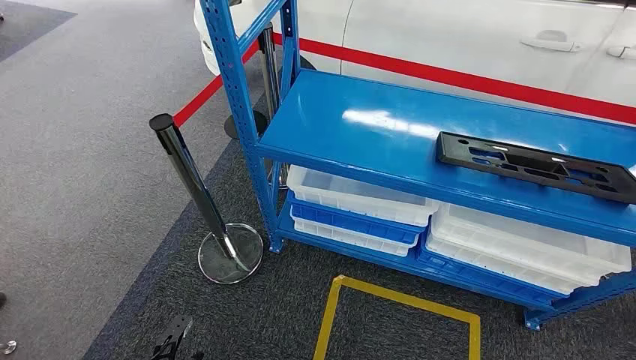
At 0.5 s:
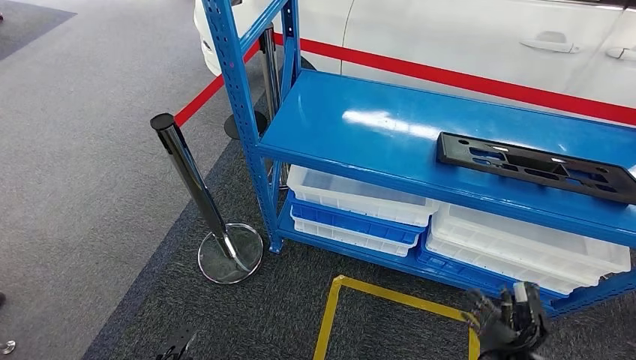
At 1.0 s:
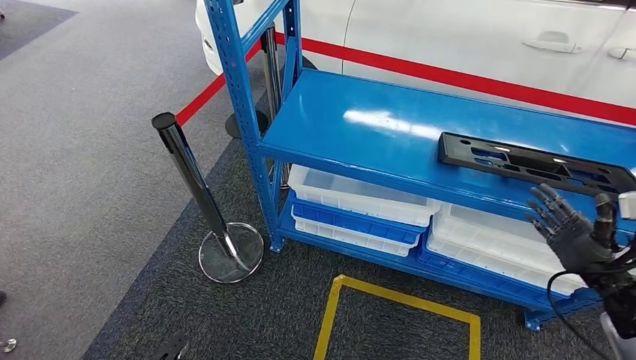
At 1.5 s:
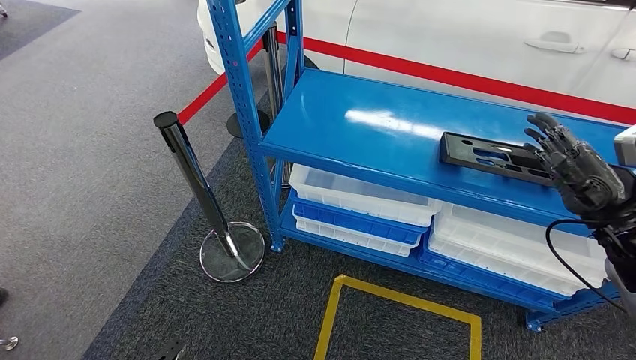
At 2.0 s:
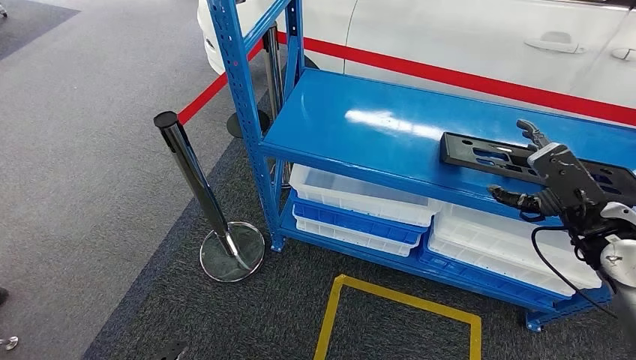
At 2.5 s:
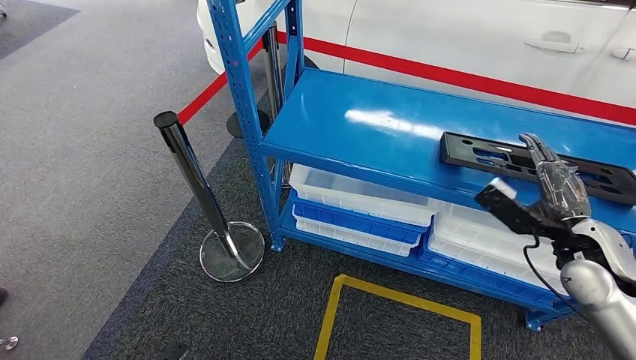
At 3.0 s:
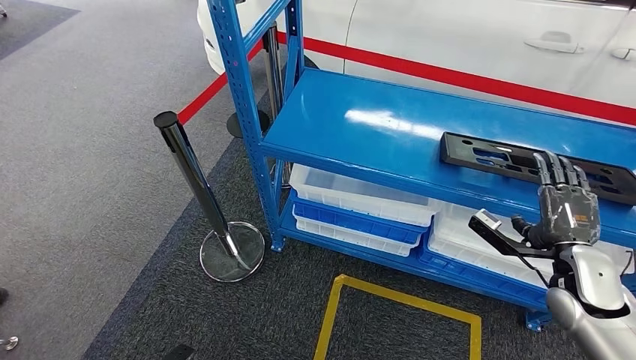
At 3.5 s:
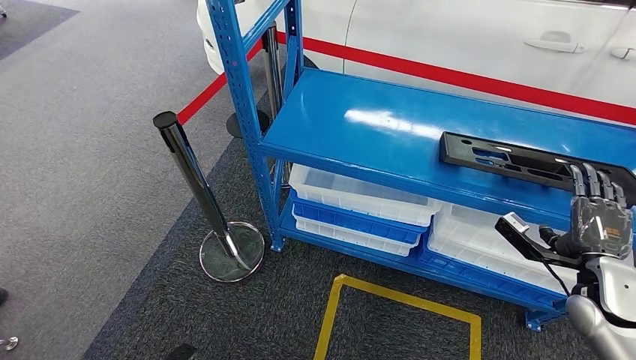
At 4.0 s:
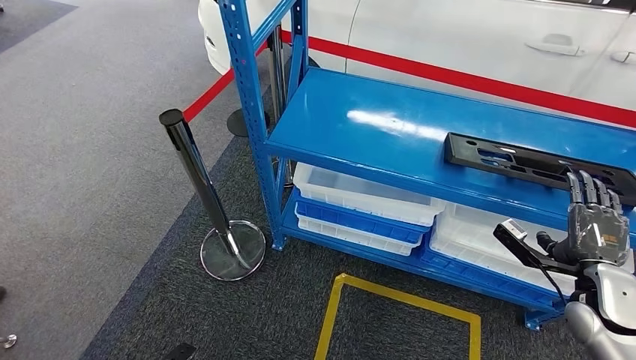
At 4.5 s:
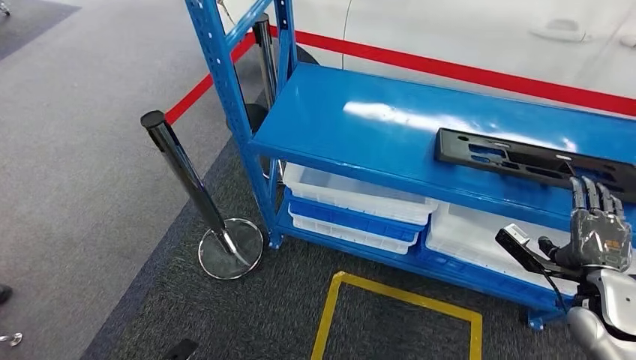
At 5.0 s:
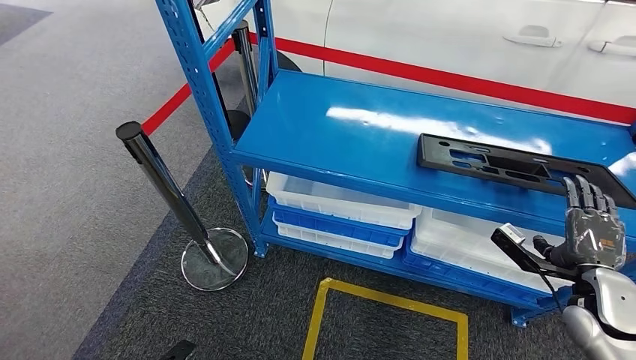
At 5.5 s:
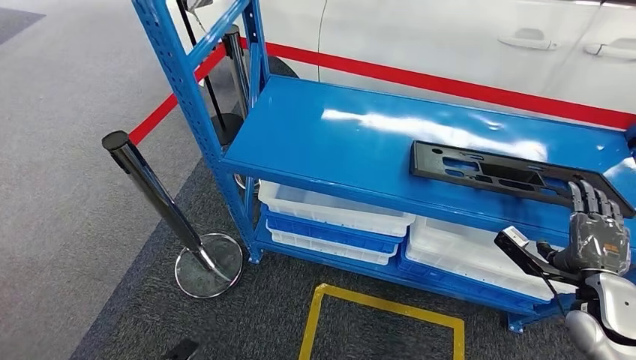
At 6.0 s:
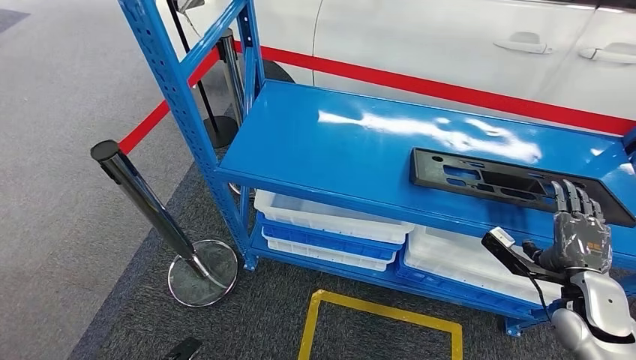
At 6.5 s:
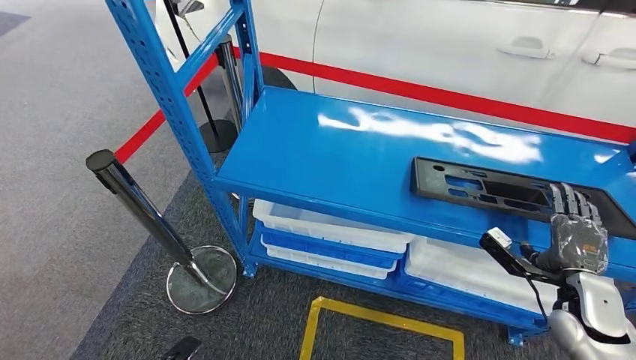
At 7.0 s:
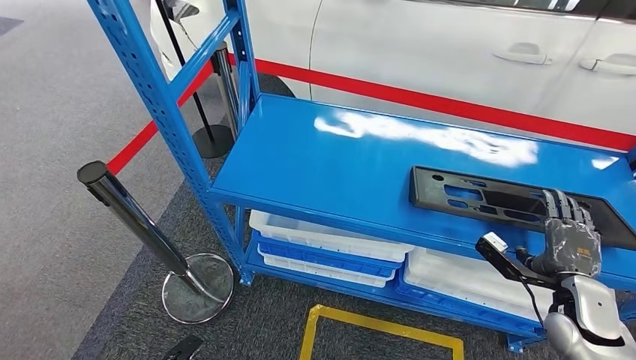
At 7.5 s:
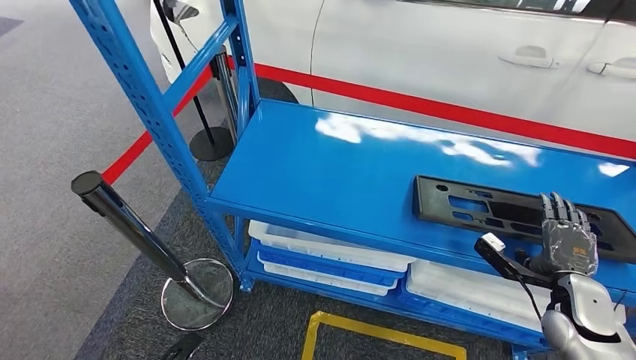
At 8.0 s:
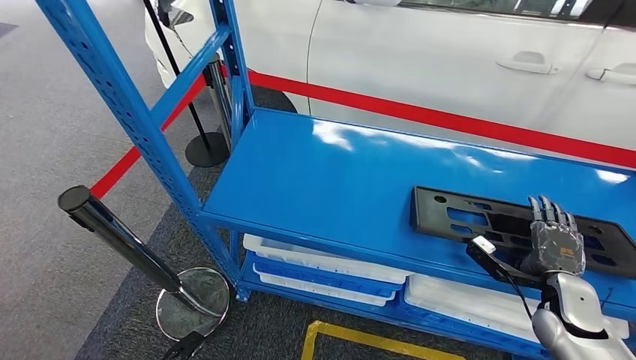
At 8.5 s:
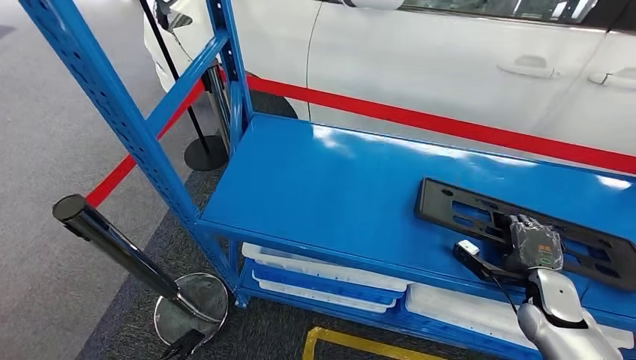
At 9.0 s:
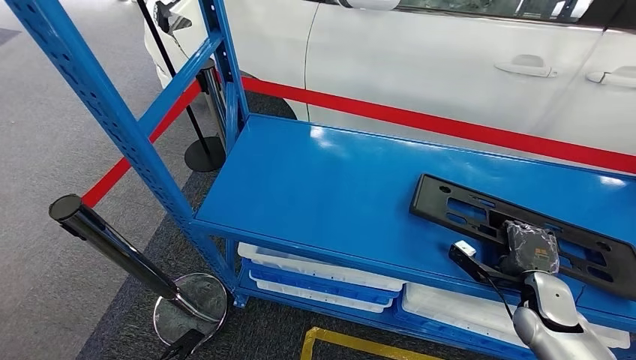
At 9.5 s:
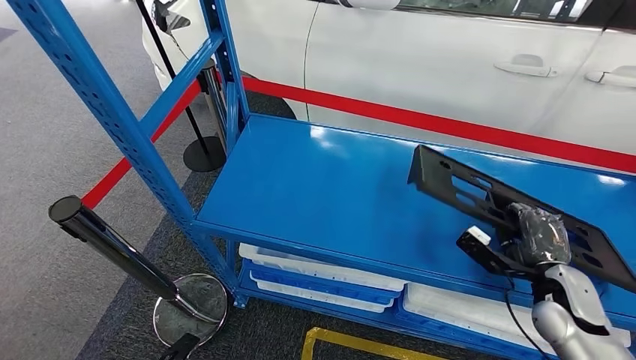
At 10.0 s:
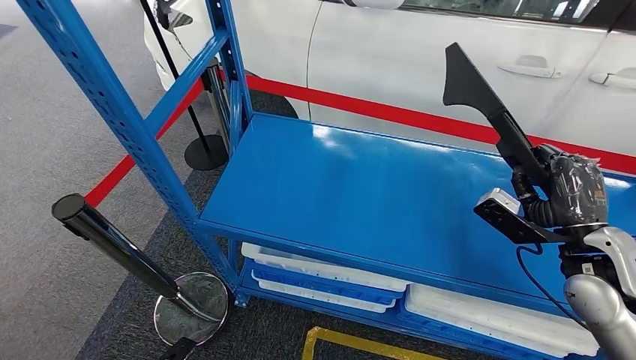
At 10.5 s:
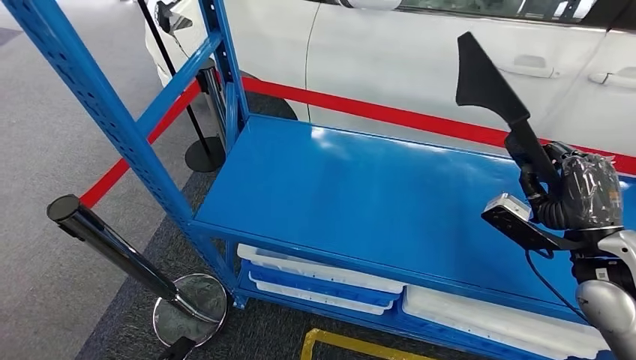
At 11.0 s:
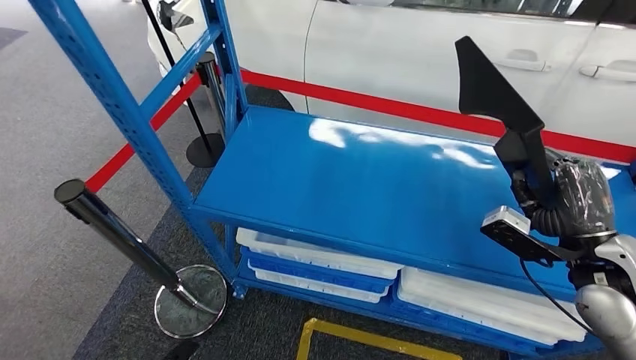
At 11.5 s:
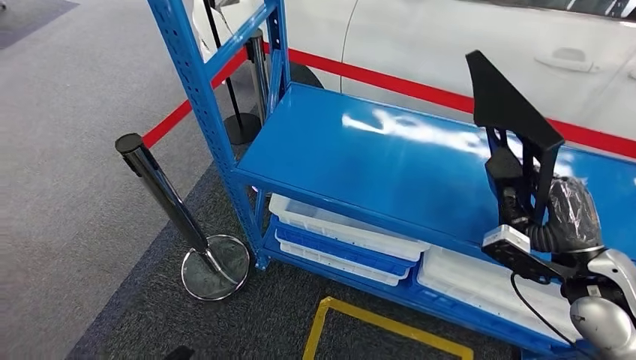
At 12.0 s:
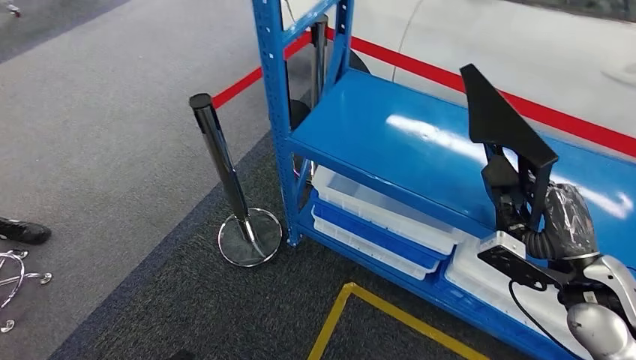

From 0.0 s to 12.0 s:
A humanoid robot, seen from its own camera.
From 2.0 s to 4.0 s: The right hand travels downward by about 10 cm.

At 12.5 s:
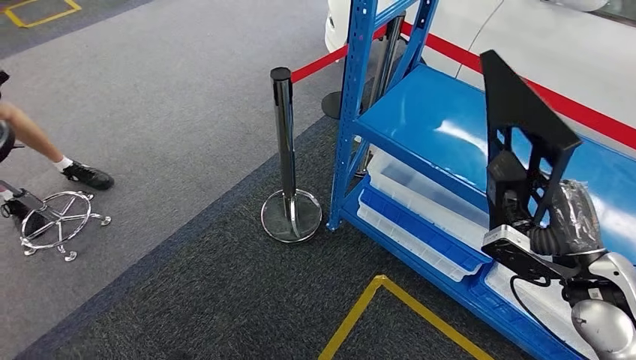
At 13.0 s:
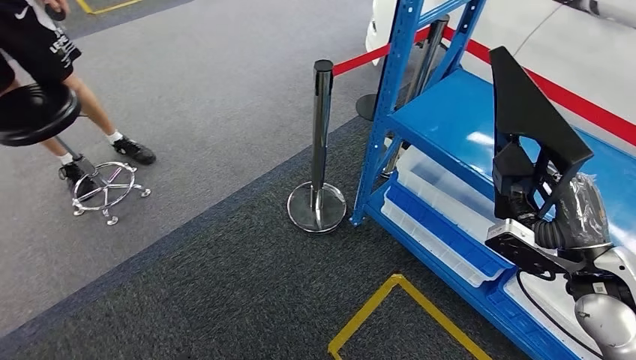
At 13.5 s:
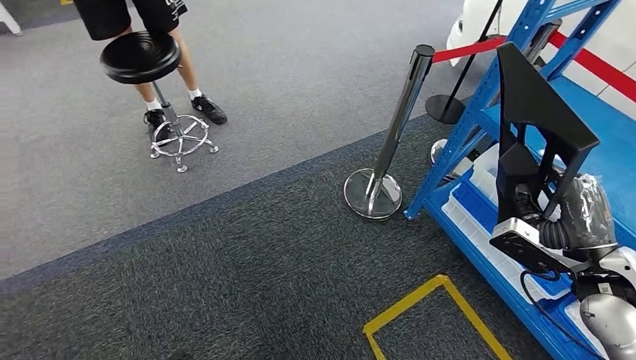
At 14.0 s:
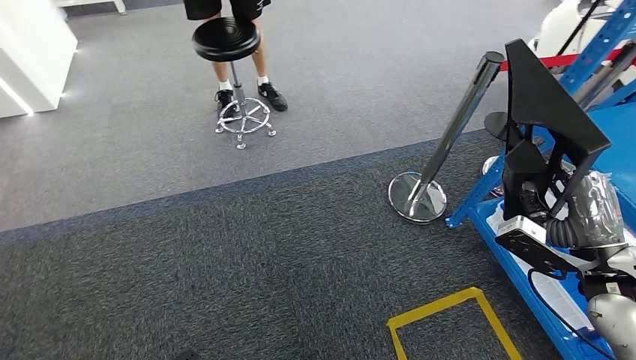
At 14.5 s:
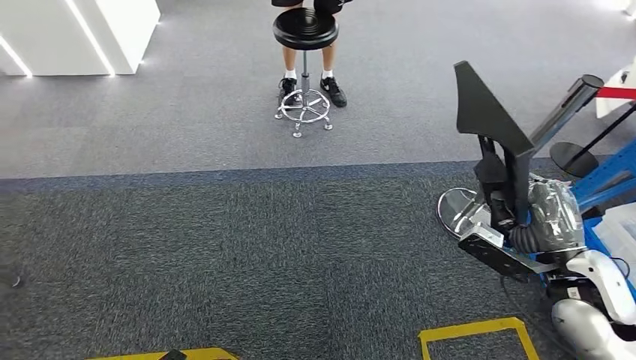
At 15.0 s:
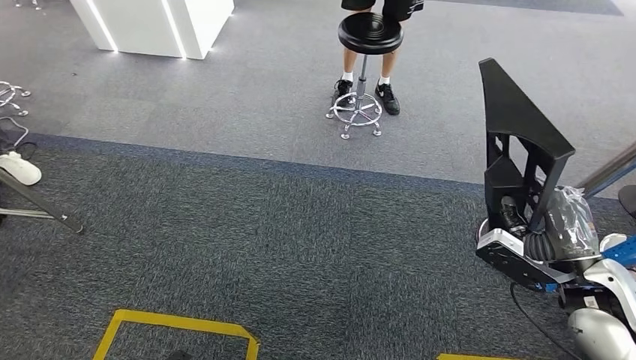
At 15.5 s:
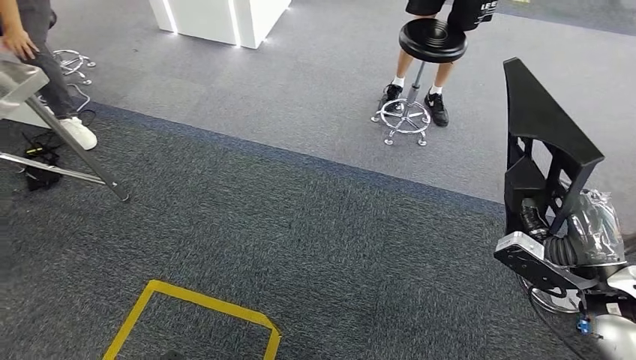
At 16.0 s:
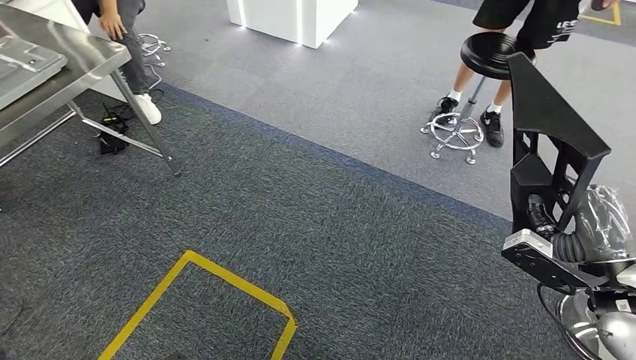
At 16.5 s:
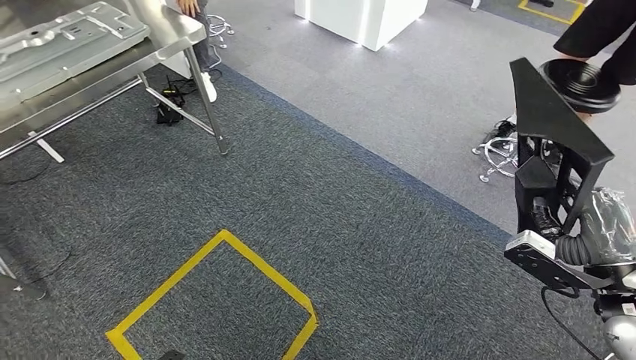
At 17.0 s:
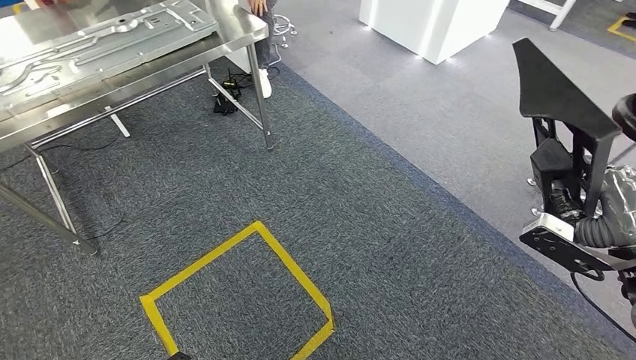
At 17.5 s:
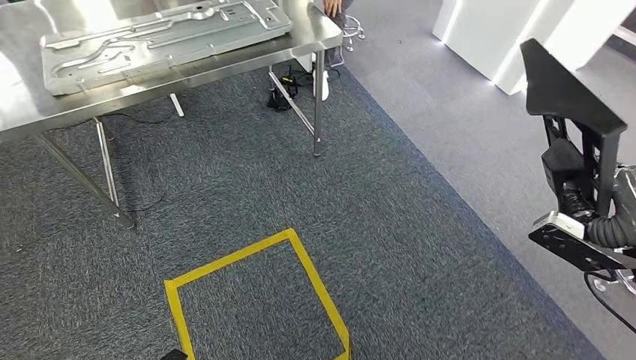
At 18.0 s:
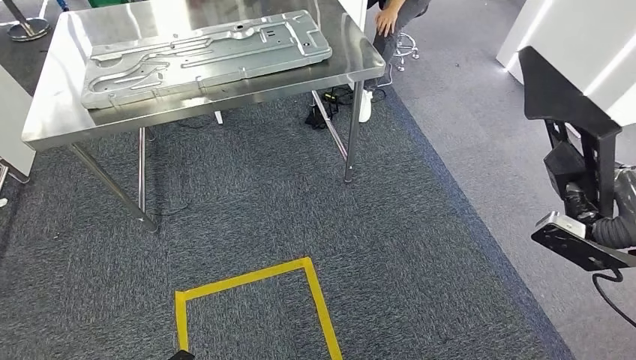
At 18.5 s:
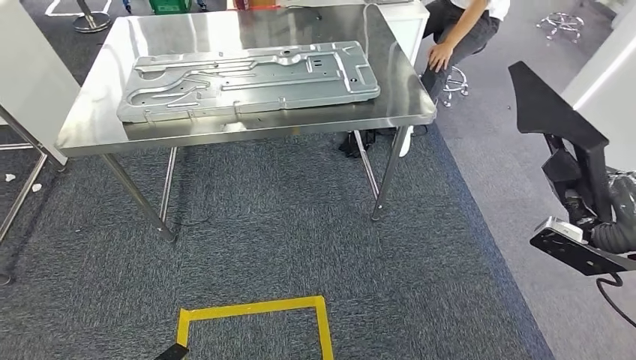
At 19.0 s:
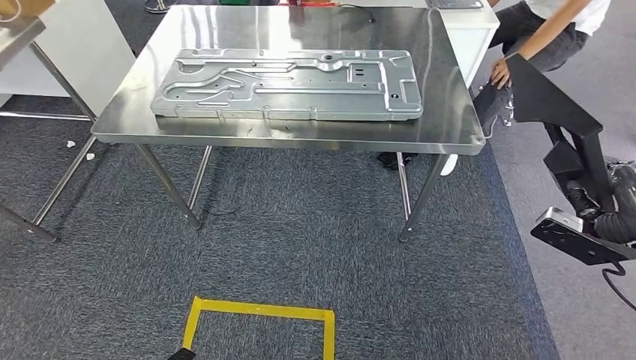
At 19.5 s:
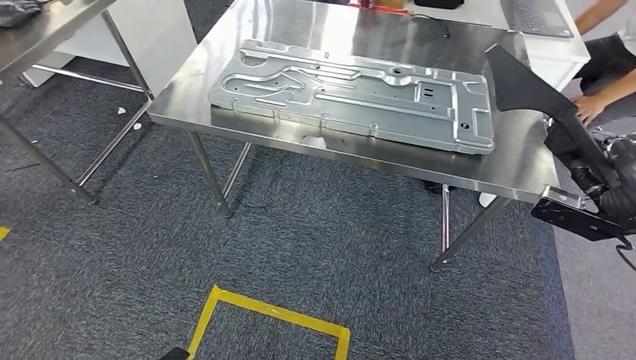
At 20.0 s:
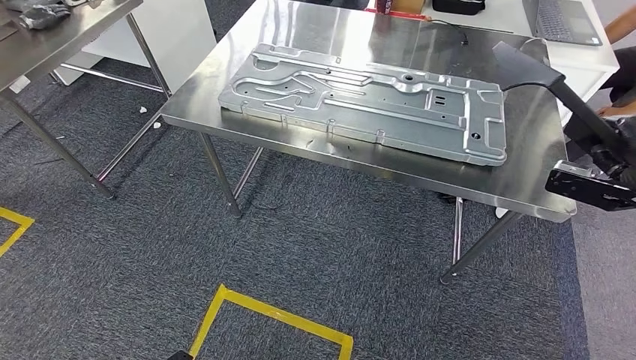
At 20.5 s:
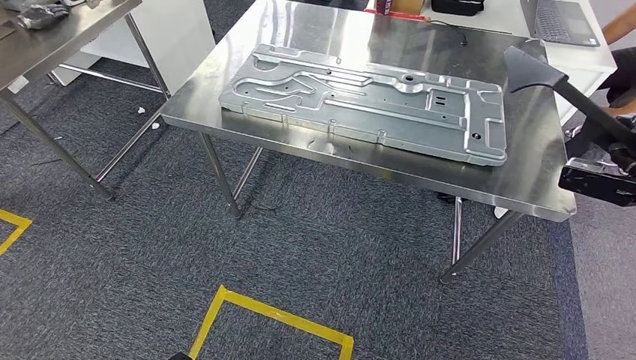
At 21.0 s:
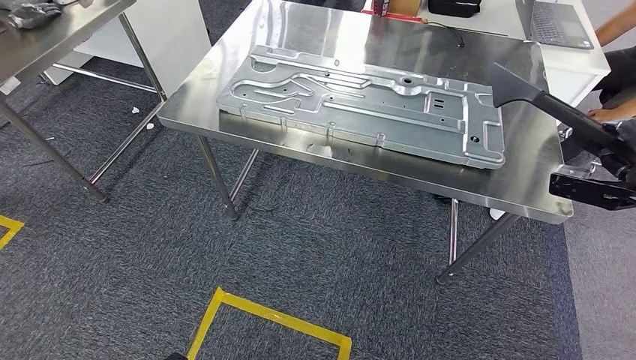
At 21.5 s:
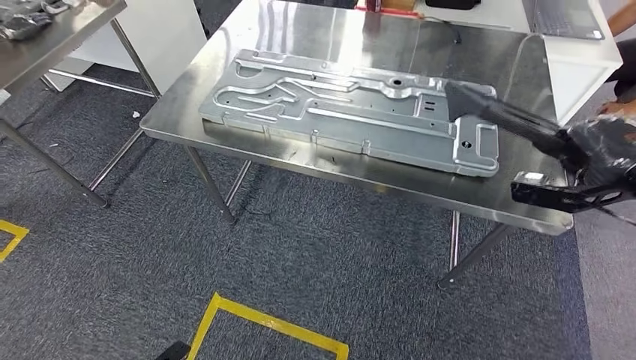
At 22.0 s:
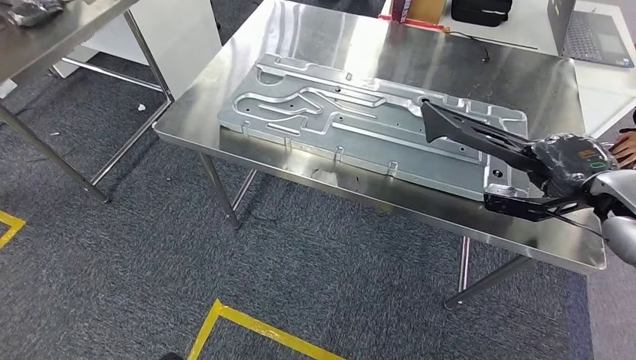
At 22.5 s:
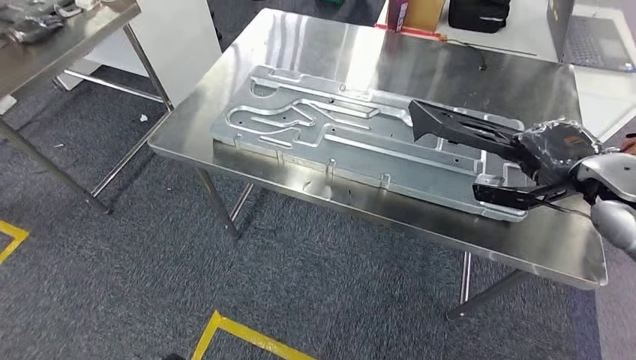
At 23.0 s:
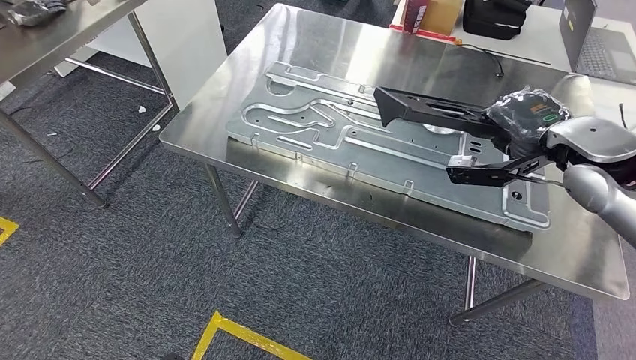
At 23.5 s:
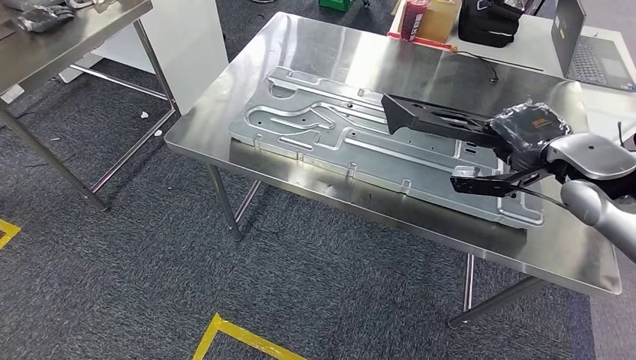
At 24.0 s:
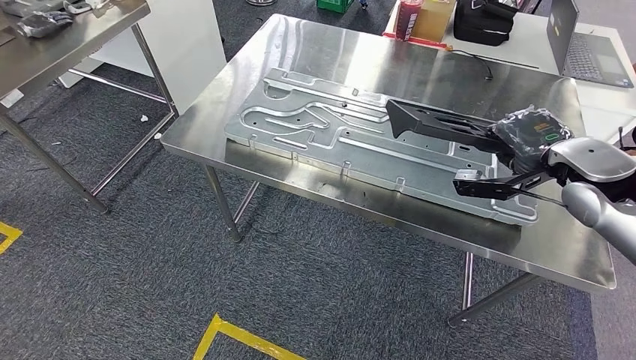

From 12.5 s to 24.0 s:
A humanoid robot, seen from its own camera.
Step, from 12.5 s to 23.5 s: Move the large material to the workbench.
